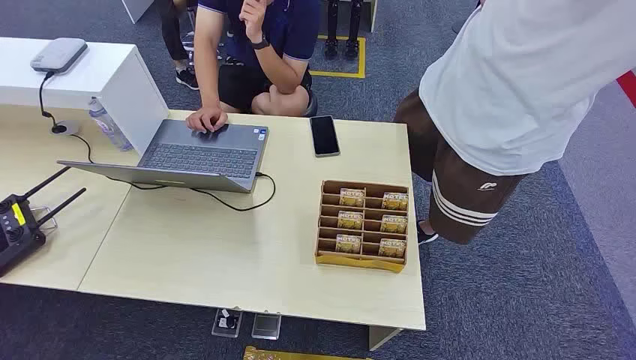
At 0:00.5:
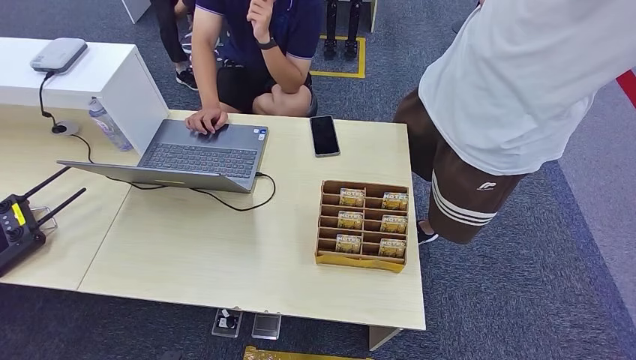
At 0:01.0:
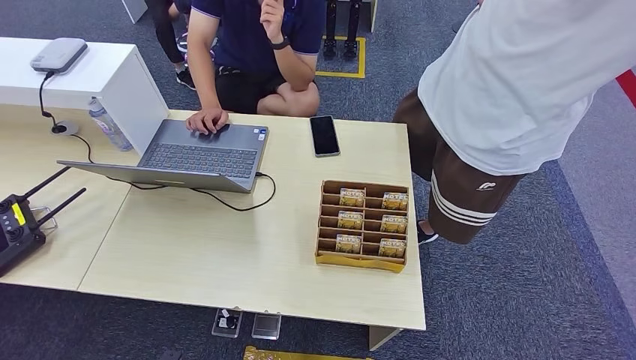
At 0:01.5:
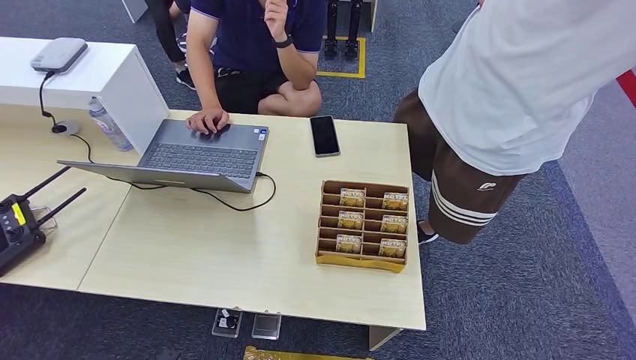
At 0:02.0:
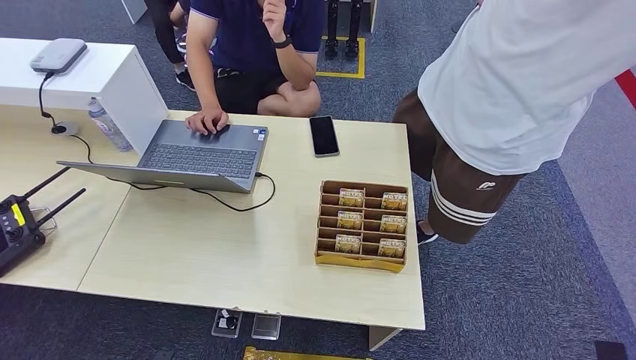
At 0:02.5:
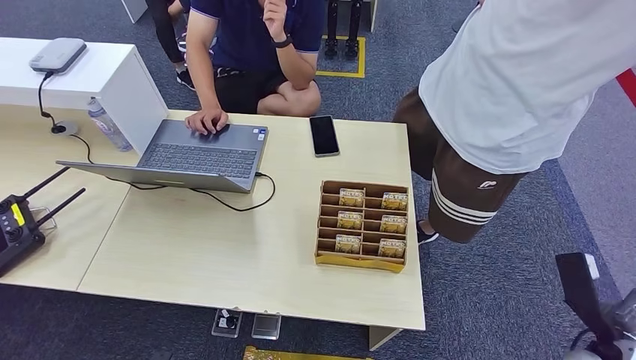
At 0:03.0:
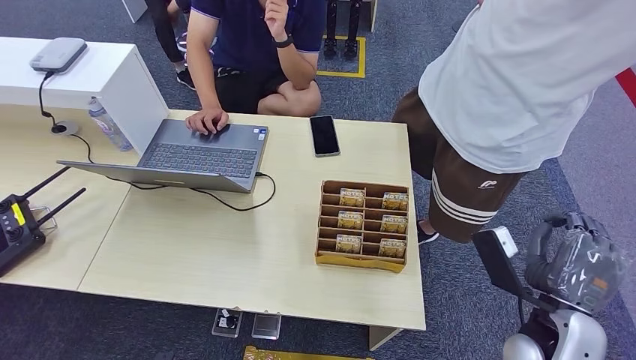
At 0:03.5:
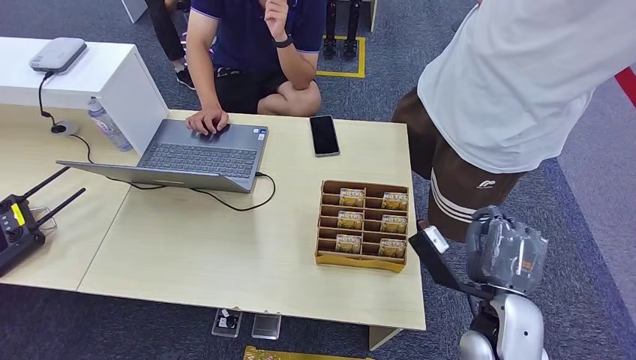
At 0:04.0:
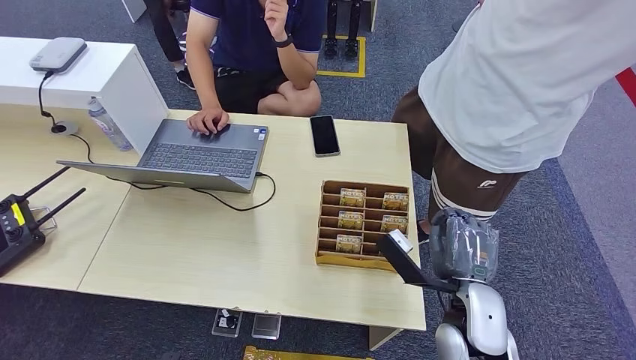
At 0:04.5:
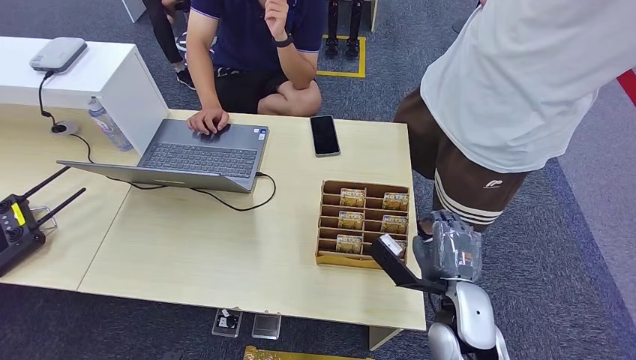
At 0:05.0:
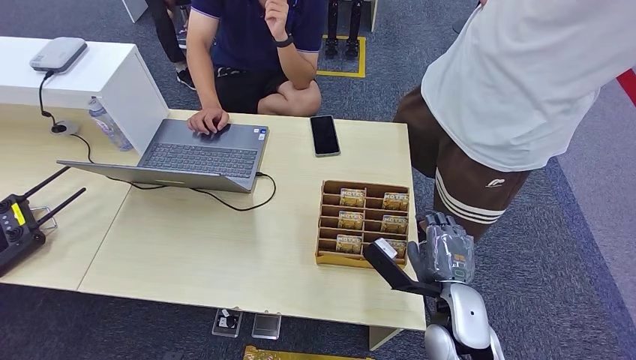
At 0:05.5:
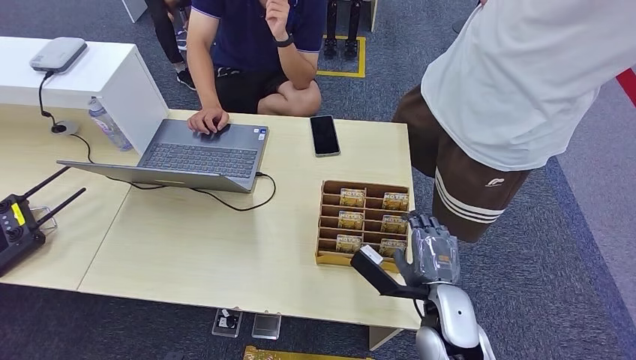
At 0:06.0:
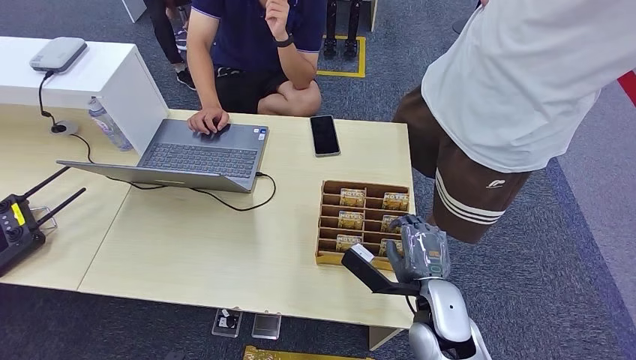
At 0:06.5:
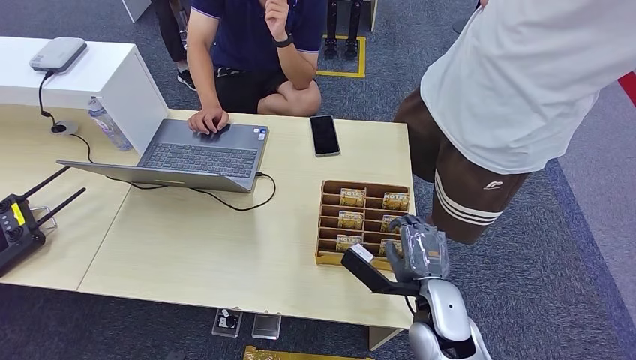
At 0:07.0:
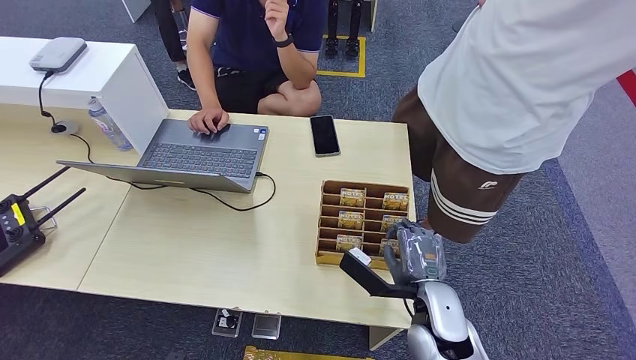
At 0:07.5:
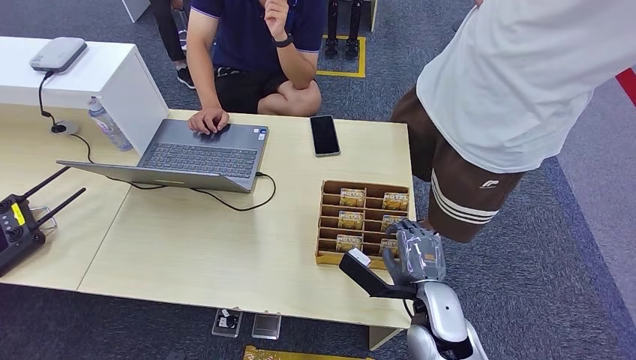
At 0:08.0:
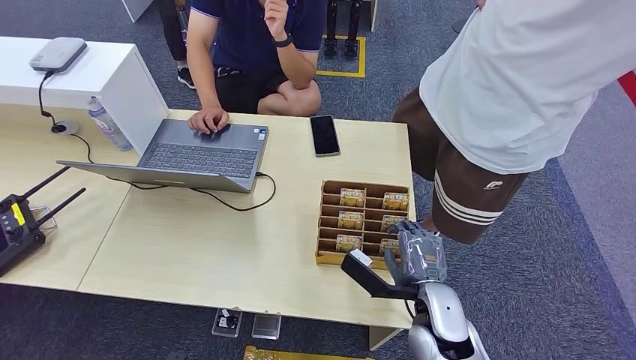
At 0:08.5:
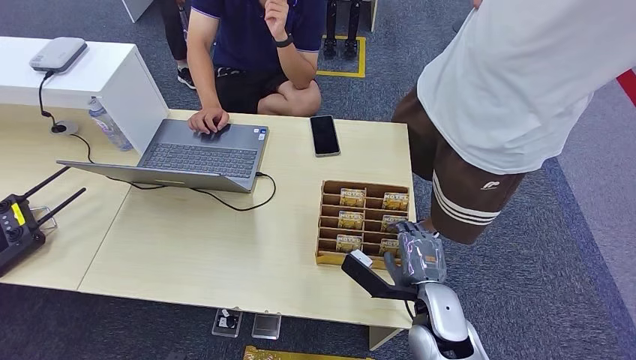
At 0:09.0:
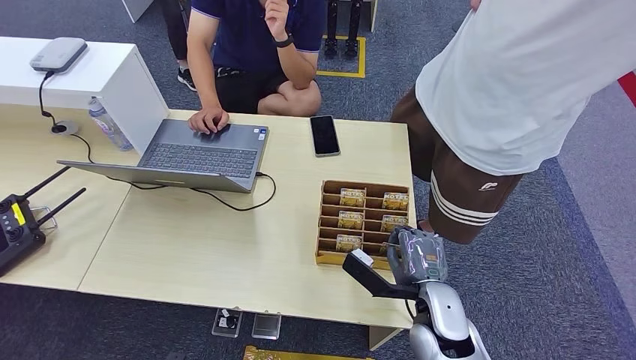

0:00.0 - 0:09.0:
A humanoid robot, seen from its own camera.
0:02.0 - 0:04.5: The right hand goes roughly 35 cm to the left, upward and forward.
0:04.5 - 0:07.0: The hands stay close to where they were, moving slightly.
0:07.0 - 0:09.0: Both hands stay about where they are.

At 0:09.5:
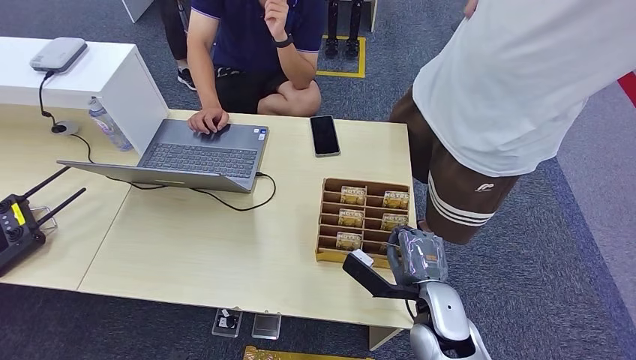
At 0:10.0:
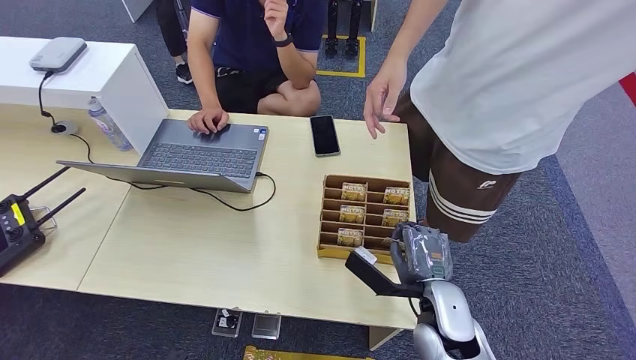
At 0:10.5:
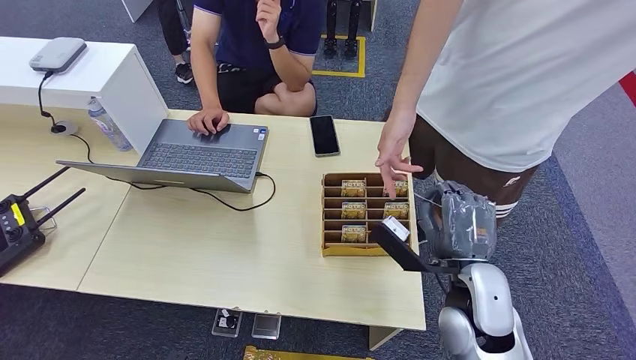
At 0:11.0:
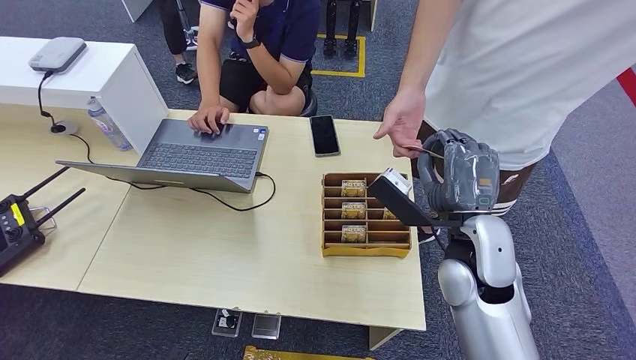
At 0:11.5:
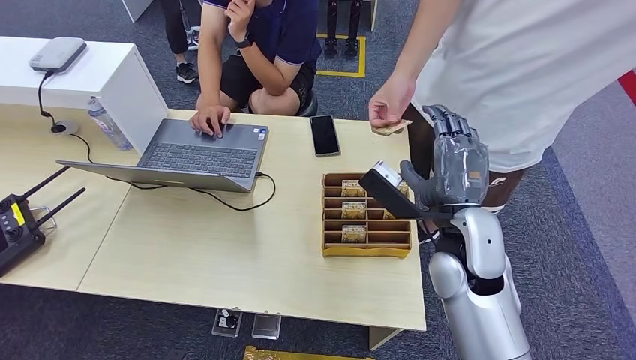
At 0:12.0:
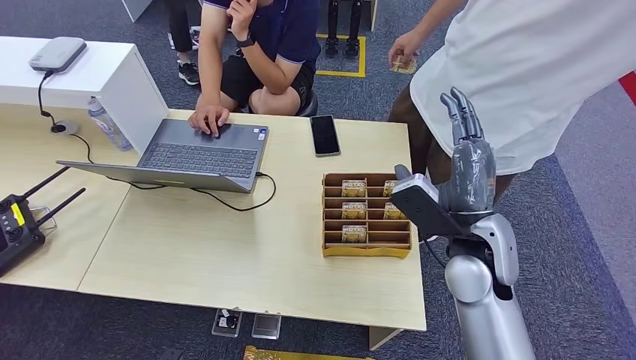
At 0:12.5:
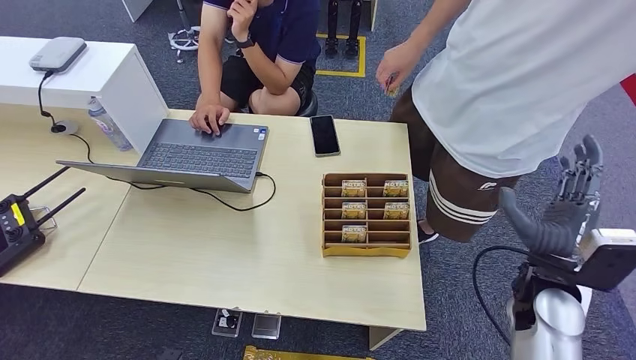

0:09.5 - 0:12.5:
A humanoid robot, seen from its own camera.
Step, 0:10.0 - 0:12.5: Hand the room card to the target.
0:11.0 - 0:12.5: The right hand goes some 15 cm to the right and downward.
